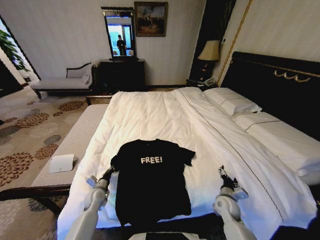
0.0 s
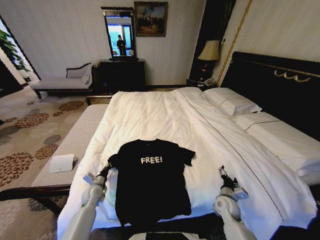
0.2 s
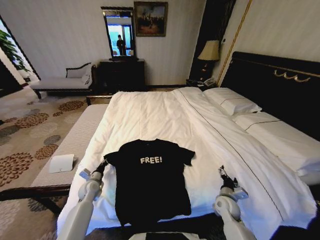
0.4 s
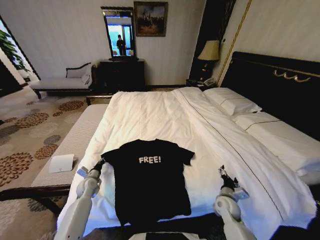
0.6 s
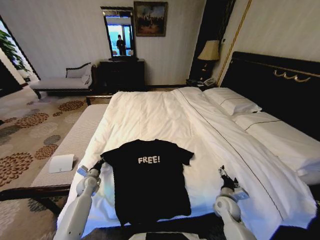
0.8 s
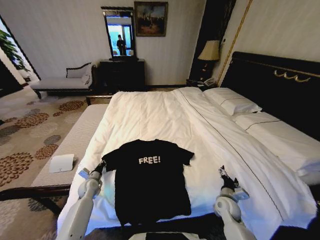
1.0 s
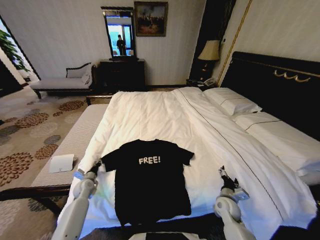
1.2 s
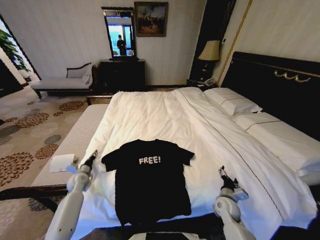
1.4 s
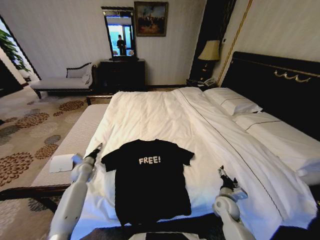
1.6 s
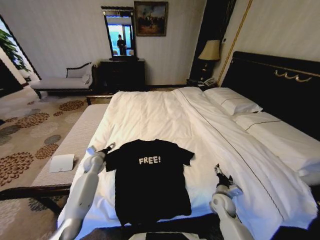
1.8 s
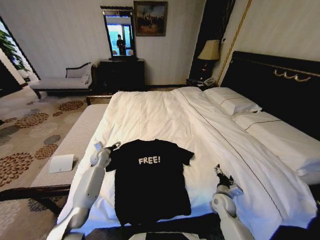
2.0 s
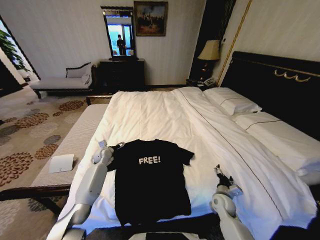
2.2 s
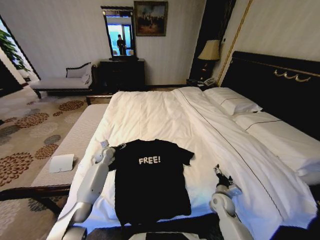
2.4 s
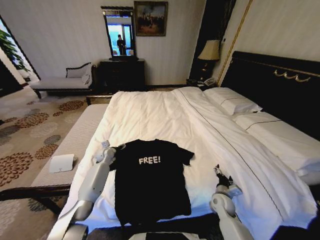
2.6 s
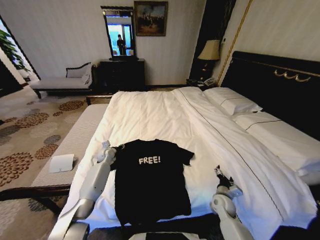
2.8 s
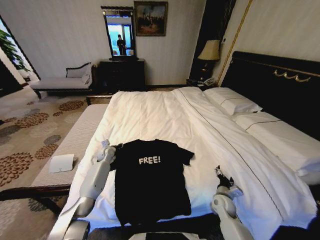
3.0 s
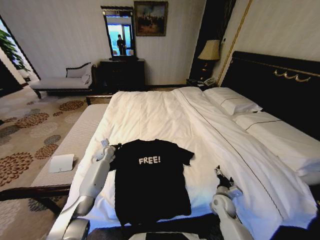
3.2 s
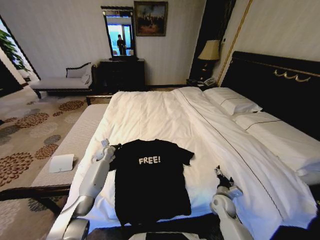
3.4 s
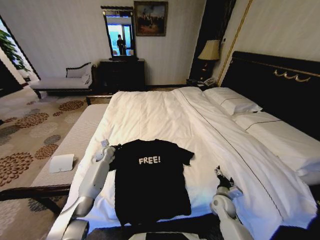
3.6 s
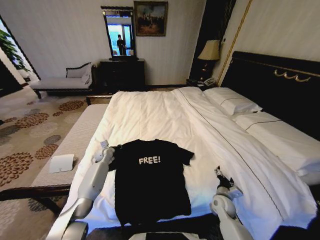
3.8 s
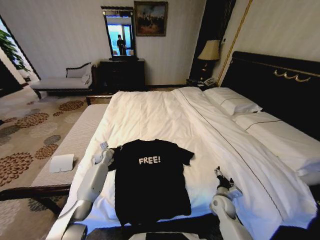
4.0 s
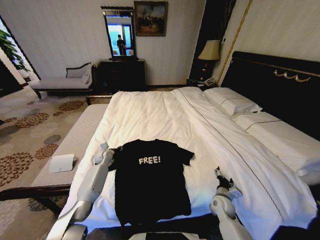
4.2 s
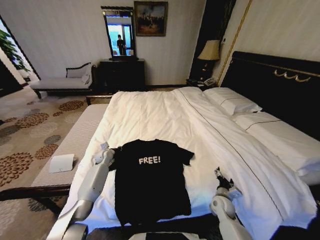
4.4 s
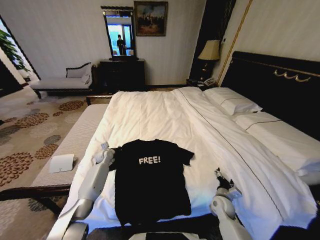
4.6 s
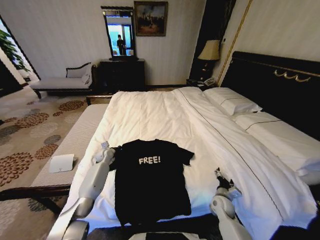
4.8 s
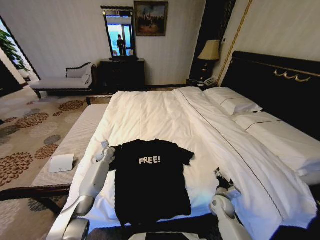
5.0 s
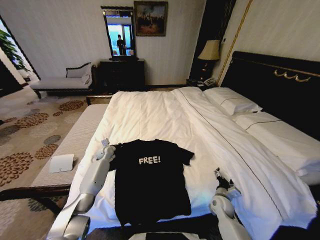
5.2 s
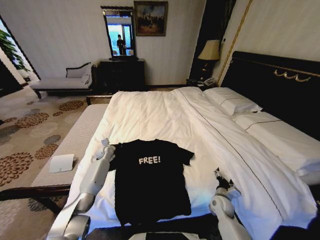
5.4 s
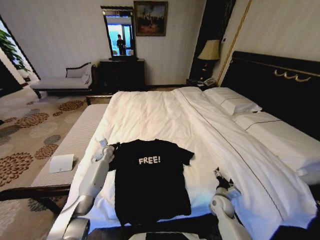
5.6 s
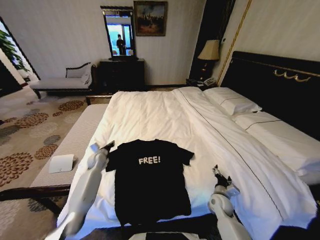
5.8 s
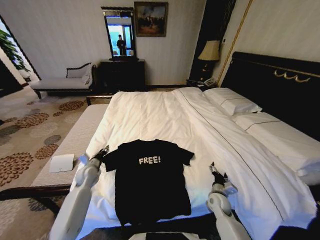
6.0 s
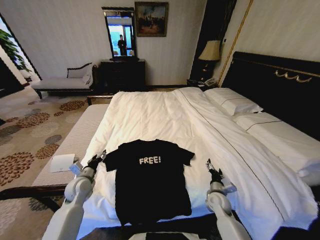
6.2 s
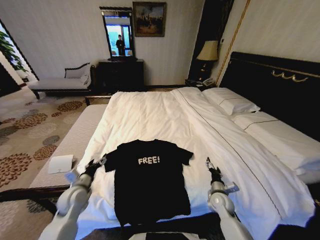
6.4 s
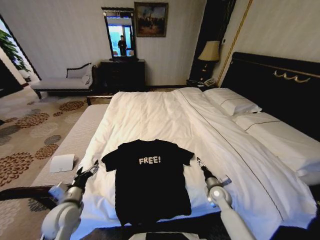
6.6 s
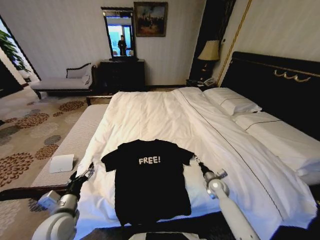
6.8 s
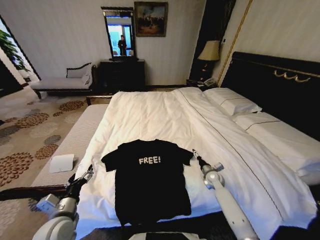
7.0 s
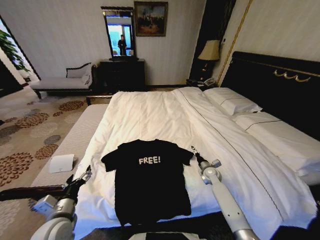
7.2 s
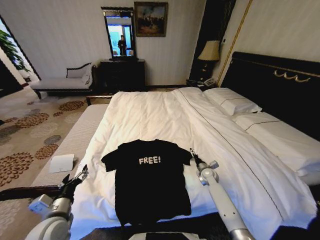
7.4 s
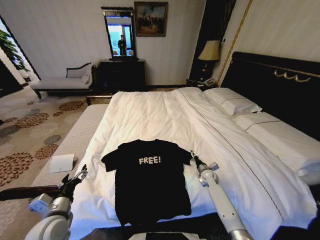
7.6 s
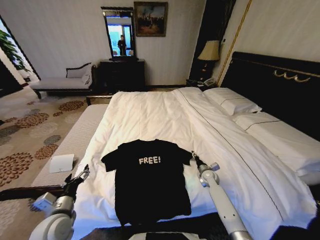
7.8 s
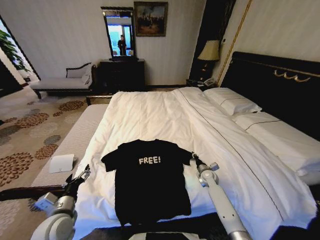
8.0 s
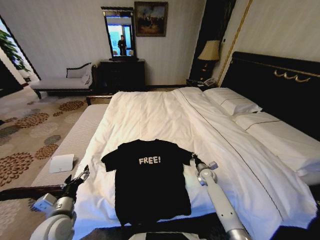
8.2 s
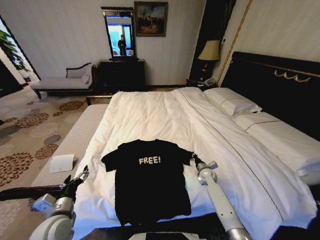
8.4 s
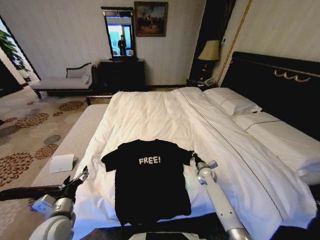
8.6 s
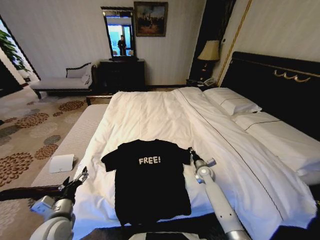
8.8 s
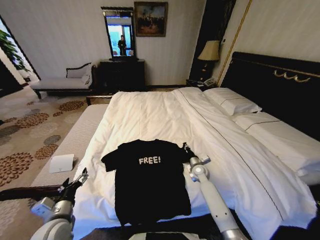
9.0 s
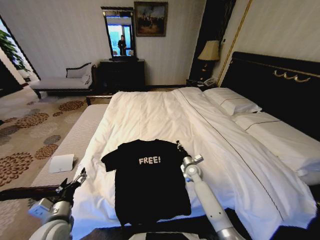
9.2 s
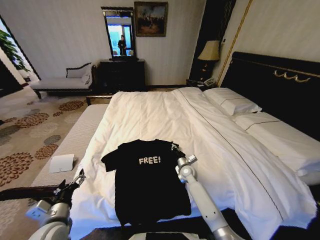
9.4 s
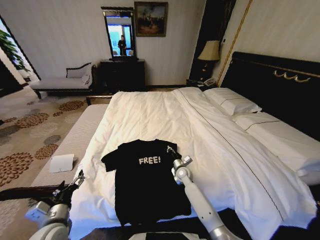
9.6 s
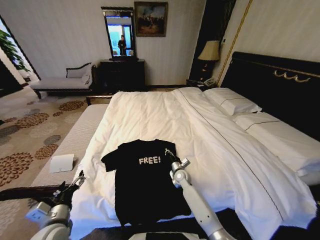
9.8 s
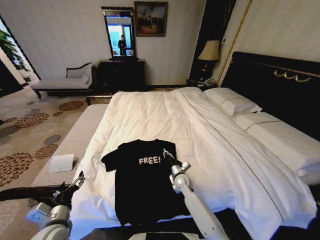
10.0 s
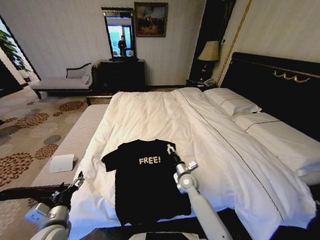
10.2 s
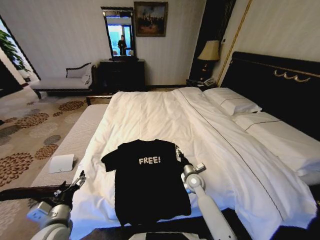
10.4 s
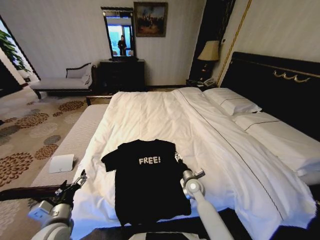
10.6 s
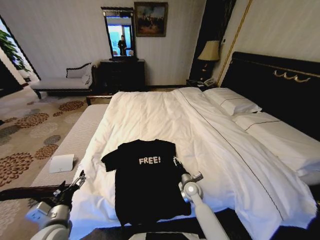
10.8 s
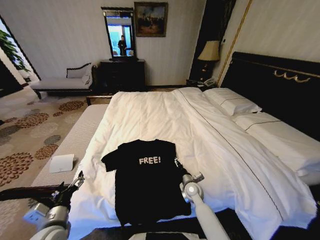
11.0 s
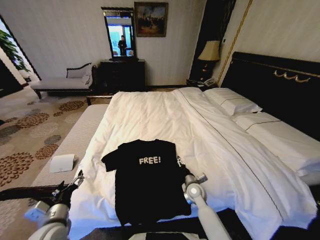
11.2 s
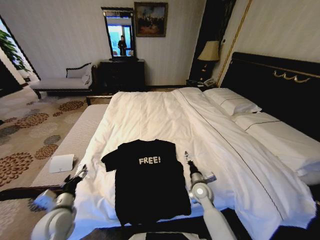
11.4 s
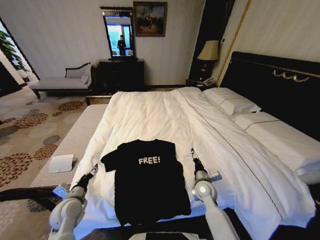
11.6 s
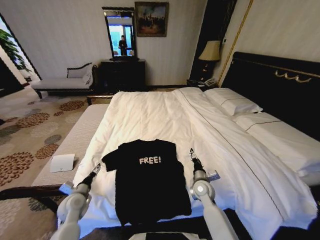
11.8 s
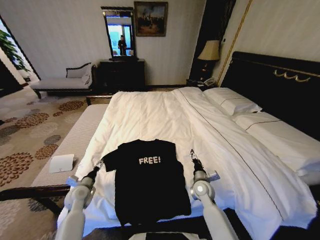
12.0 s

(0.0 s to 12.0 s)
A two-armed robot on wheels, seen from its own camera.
Task of the whole recording: Fold the clothes on the bed.
0.0 s - 1.6 s: The left gripper heads forward, to the left and upward, covering approximately 15 cm, and opens.
1.6 s - 3.0 s: The left gripper travels forward and to the right by roughly 15 cm, and closes its fingers.
3.0 s - 4.4 s: The grippers stay close to where they were, moving slightly.
4.4 s - 6.0 s: The left gripper moves backward, approximately 15 cm.
6.0 s - 7.6 s: The right gripper goes about 15 cm forward; the left gripper is displaced backward by some 20 cm, and opens its fingers.
7.6 s - 9.0 s: The right gripper shifts approximately 5 cm to the left, and closes.
9.0 s - 10.4 s: The right gripper moves backward and to the left, roughly 10 cm, and opens.
10.4 s - 12.0 s: The left gripper is displaced forward and downward by some 20 cm. The right gripper opens up.

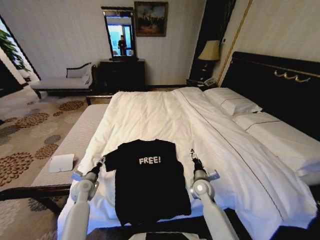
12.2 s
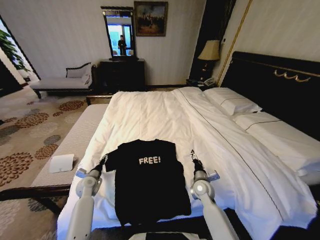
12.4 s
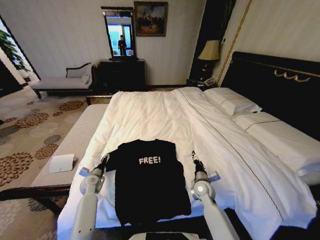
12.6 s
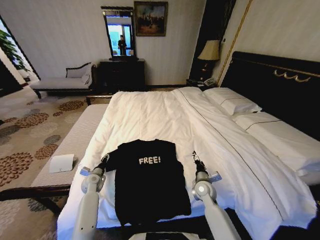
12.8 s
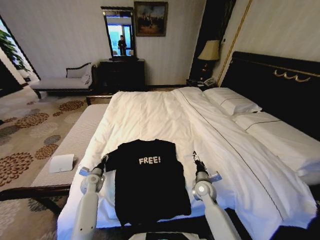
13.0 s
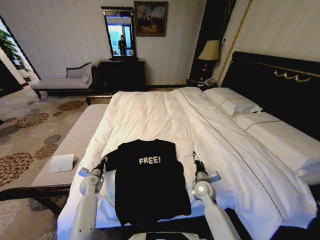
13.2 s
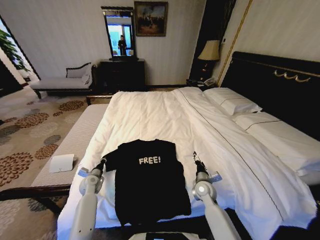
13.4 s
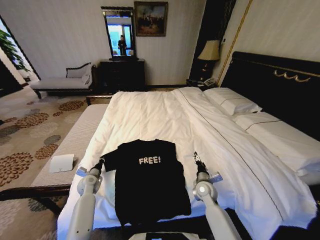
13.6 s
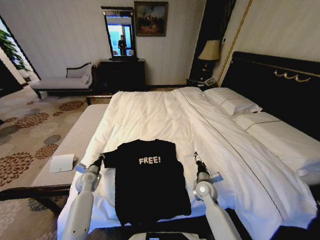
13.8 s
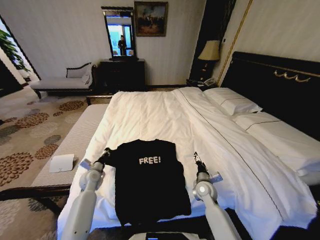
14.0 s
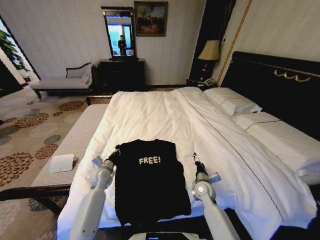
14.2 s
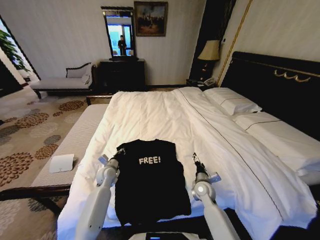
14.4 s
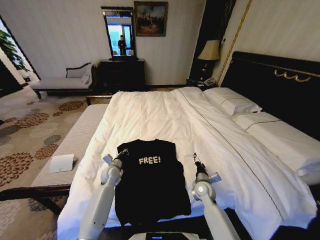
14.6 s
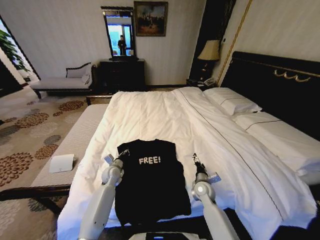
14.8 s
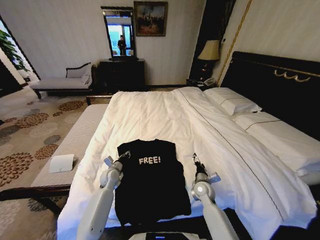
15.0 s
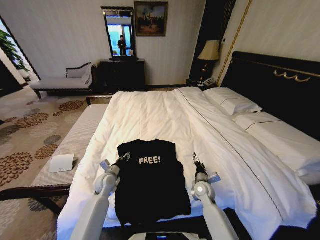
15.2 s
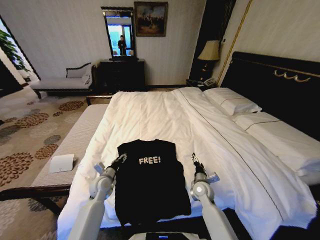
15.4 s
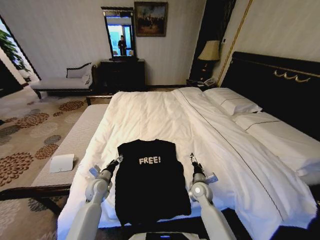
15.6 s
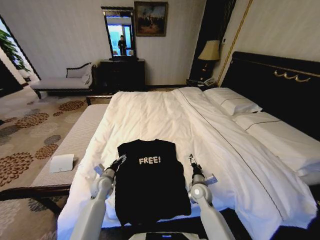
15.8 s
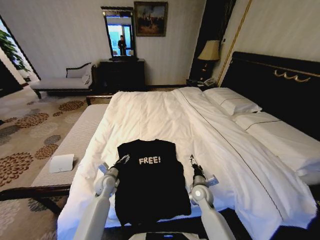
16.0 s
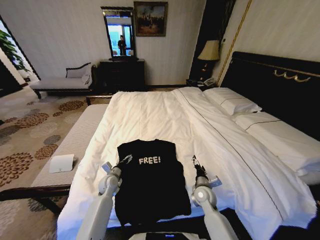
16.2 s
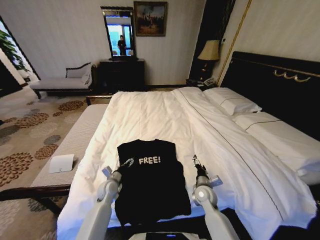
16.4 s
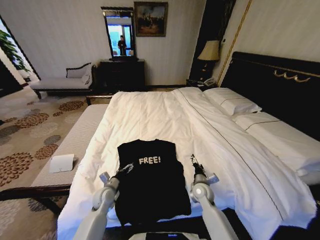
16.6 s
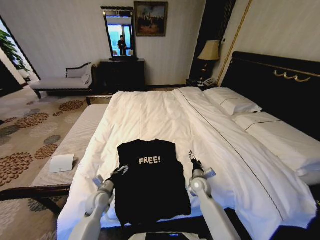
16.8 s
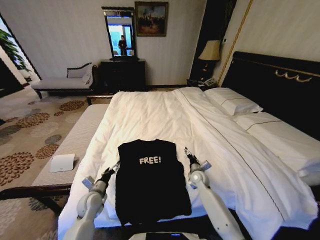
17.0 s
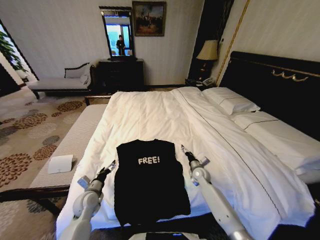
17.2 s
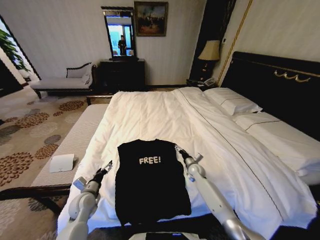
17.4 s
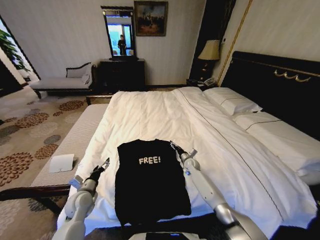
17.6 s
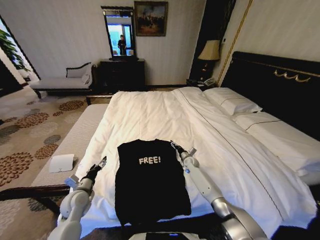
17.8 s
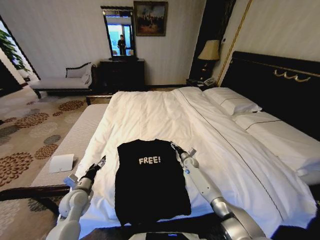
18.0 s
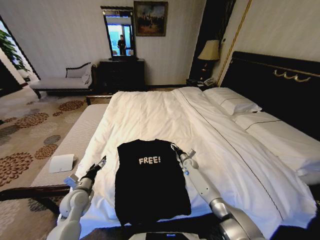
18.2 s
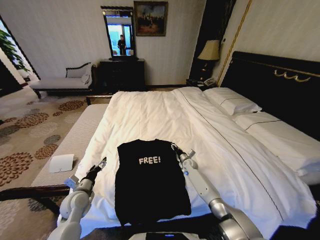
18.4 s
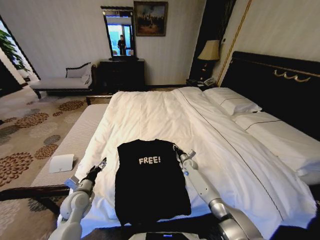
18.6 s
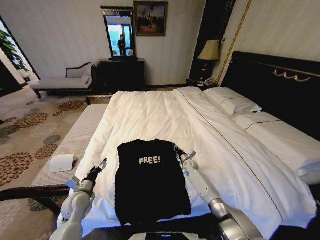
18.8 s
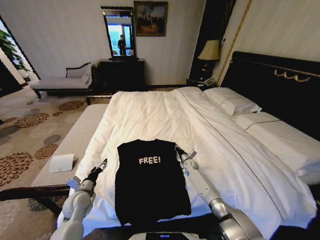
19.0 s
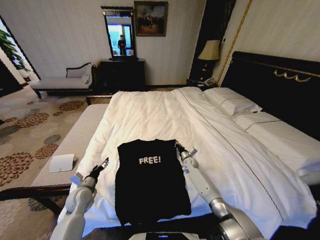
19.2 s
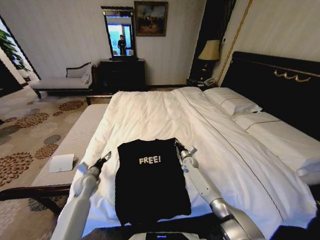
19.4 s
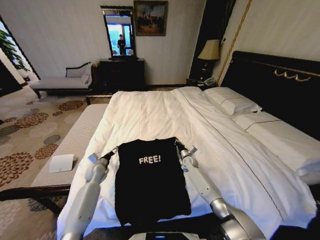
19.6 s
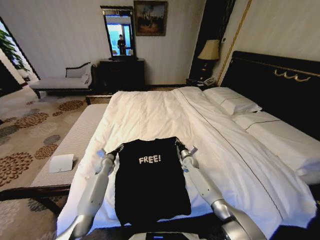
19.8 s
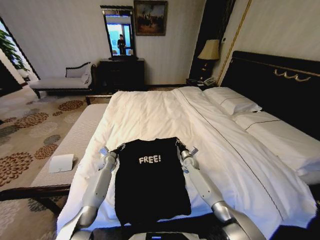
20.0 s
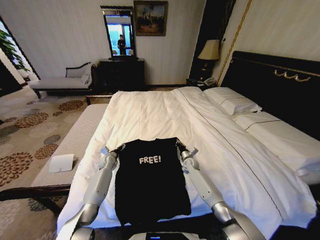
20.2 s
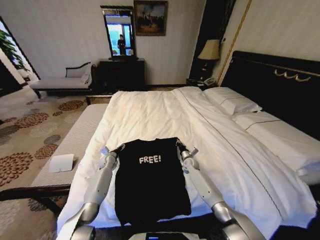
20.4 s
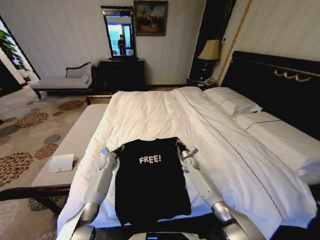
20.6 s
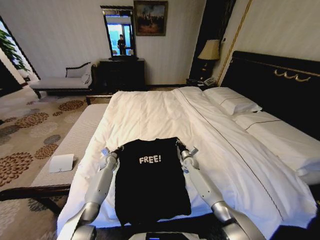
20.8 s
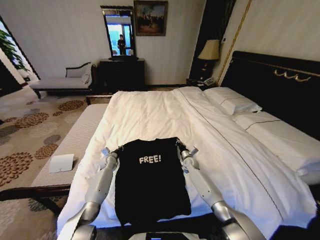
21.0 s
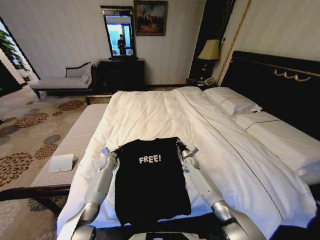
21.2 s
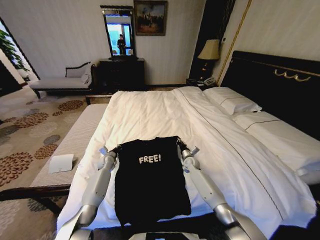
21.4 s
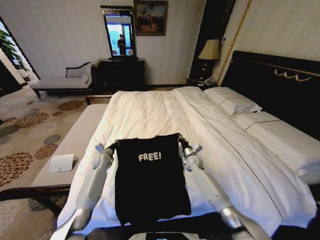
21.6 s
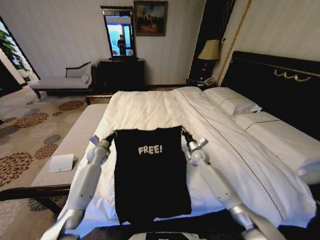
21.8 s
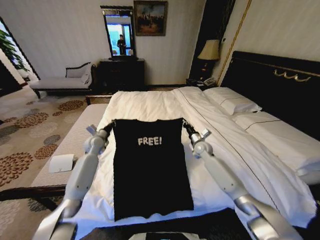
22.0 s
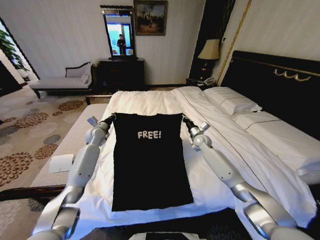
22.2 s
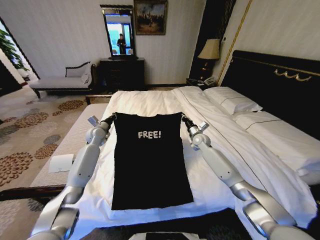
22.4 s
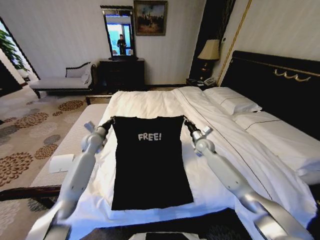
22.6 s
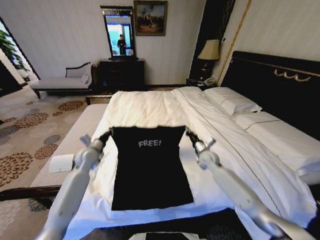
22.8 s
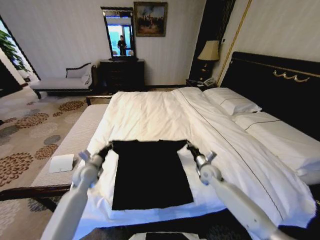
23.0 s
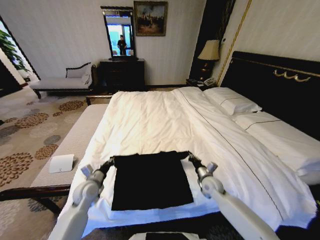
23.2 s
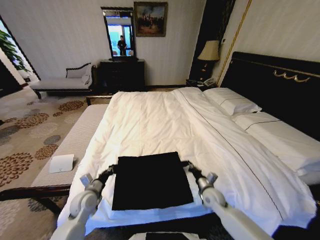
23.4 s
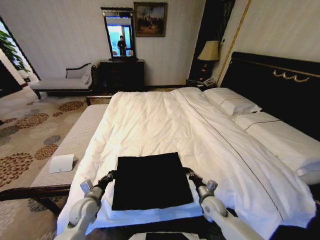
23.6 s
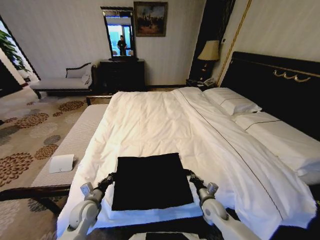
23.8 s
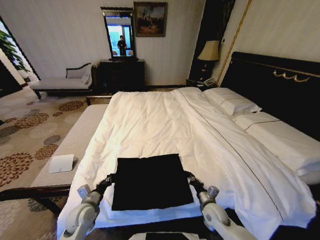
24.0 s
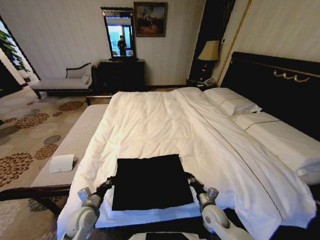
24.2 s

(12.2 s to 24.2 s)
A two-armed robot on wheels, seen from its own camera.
Task of the whole recording: Fold the clothes on the bed.
12.2 s - 13.8 s: The left gripper closes.
13.8 s - 15.2 s: The left gripper heads to the right, covering roughly 10 cm, and opens.
15.2 s - 16.6 s: The left gripper heads backward, covering some 5 cm, and opens its fingers.
16.6 s - 18.2 s: The left gripper moves to the left and upward, approximately 10 cm. The right gripper is displaced forward by roughly 20 cm.
18.2 s - 19.8 s: The left gripper travels forward by roughly 20 cm, while the right gripper closes its fingers.
19.8 s - 21.2 s: The left gripper moves some 5 cm, and closes up.
21.2 s - 22.6 s: The grippers both shift upward by about 20 cm.
22.6 s - 24.2 s: Both grippers travel together backward and downward, about 30 cm.
